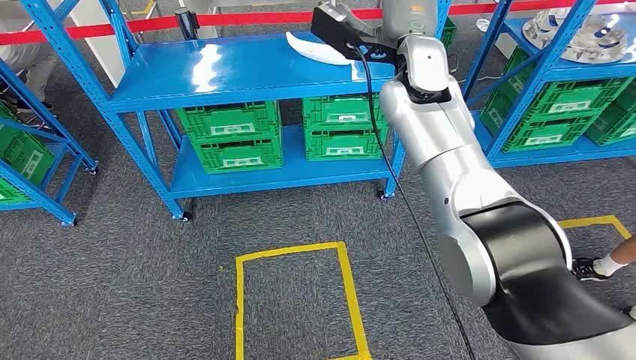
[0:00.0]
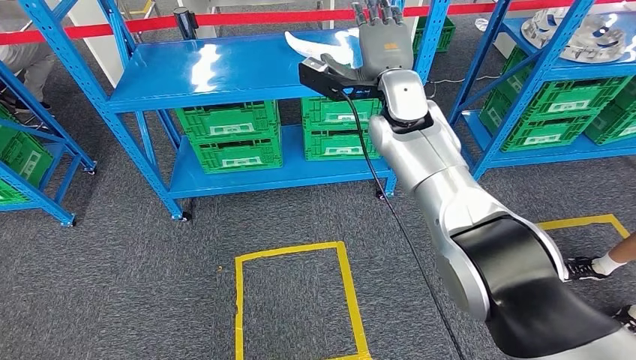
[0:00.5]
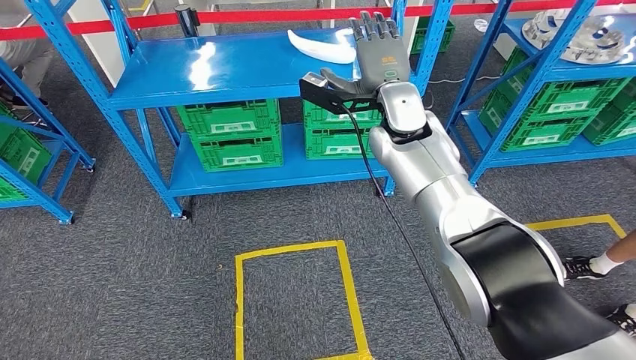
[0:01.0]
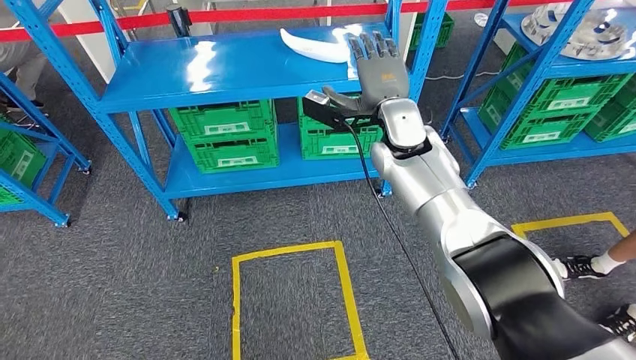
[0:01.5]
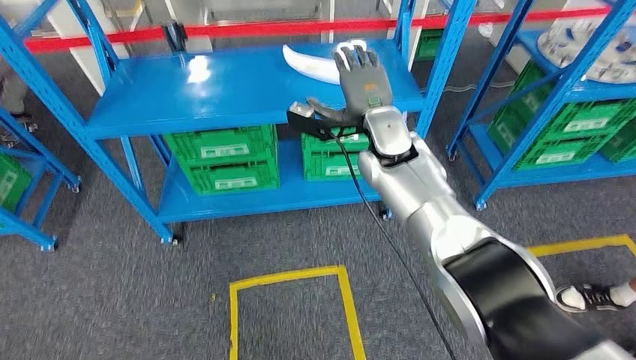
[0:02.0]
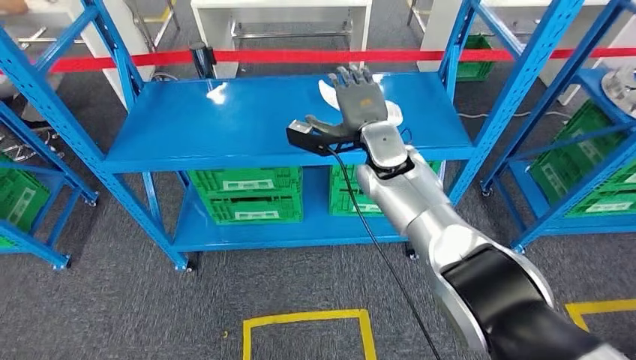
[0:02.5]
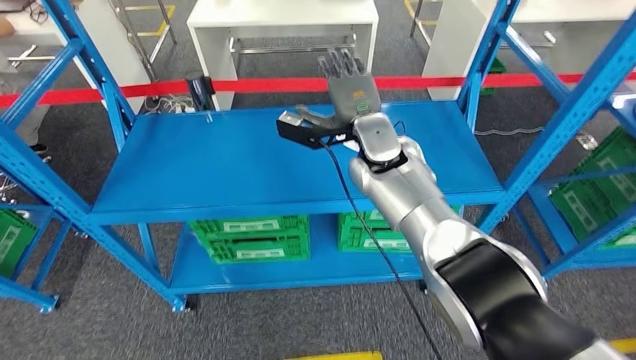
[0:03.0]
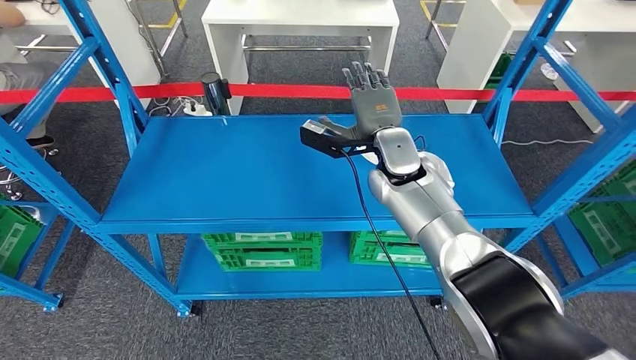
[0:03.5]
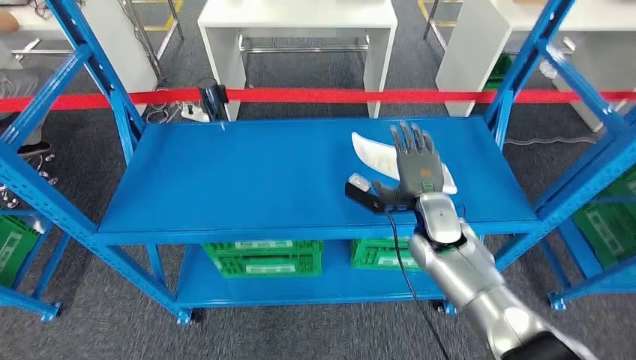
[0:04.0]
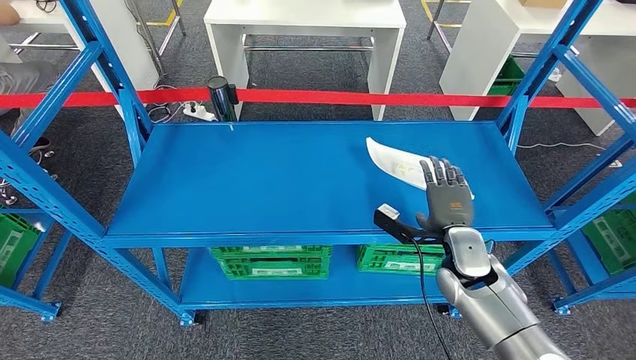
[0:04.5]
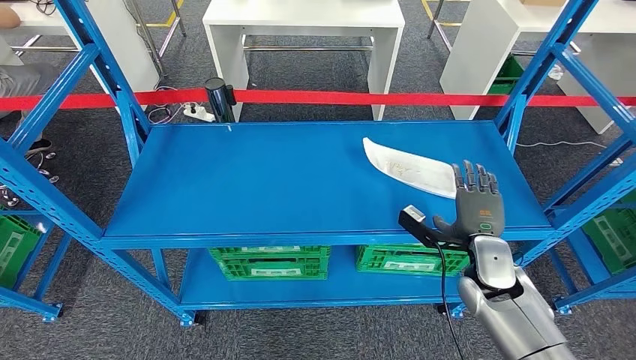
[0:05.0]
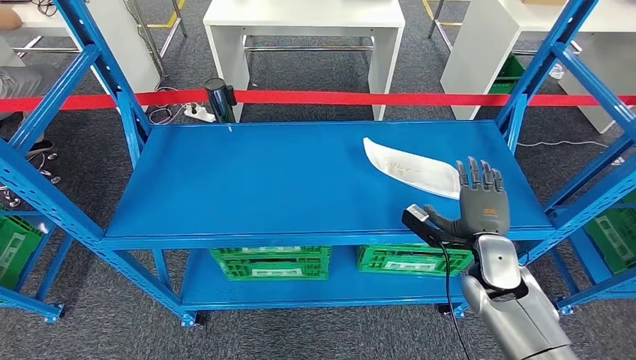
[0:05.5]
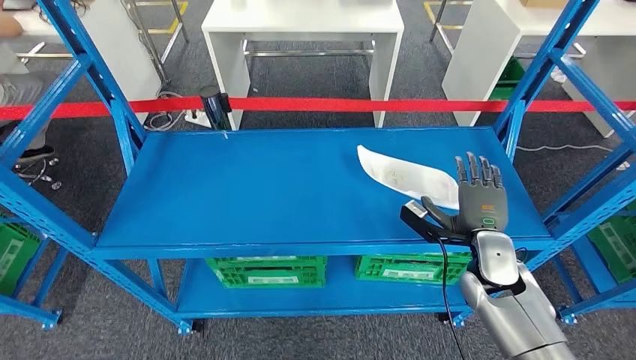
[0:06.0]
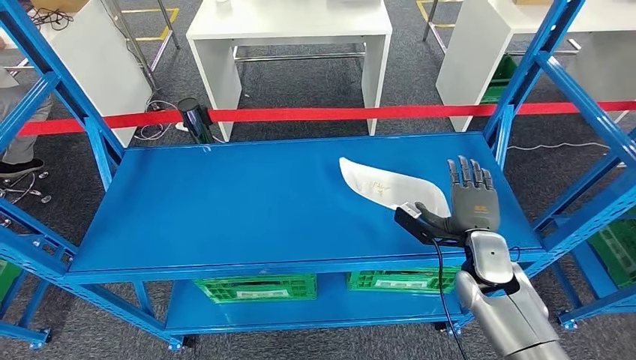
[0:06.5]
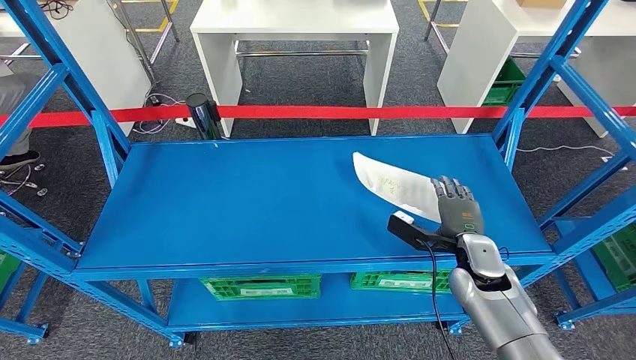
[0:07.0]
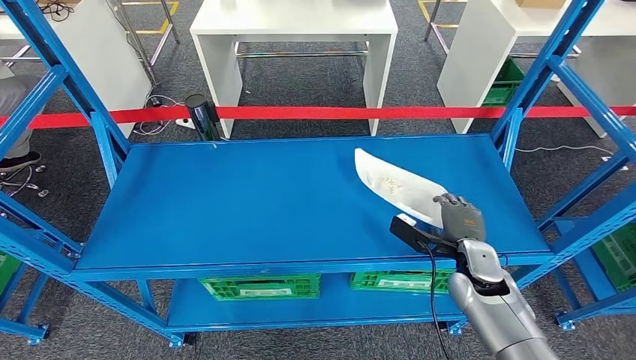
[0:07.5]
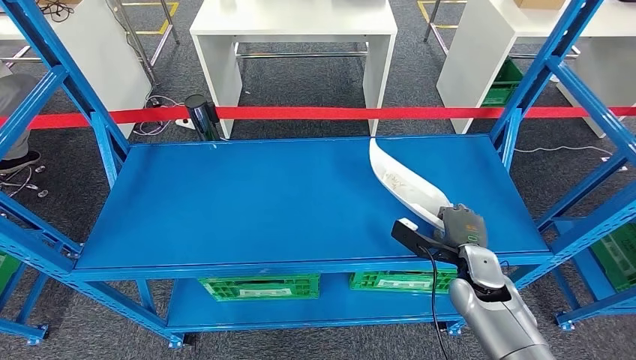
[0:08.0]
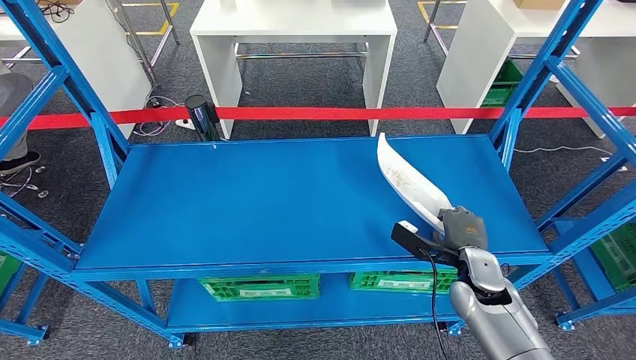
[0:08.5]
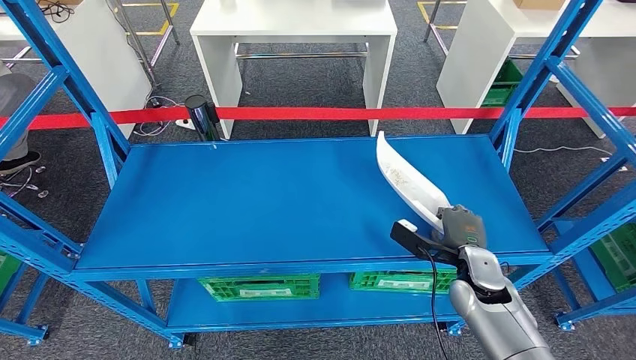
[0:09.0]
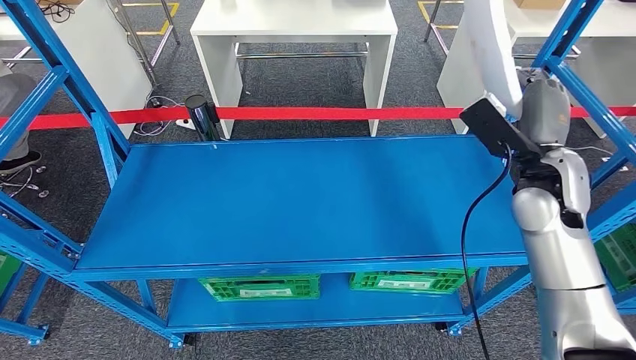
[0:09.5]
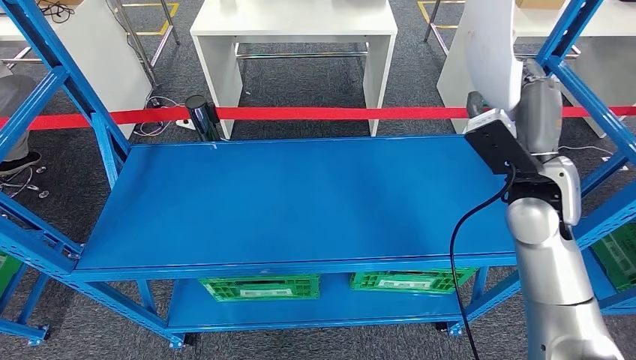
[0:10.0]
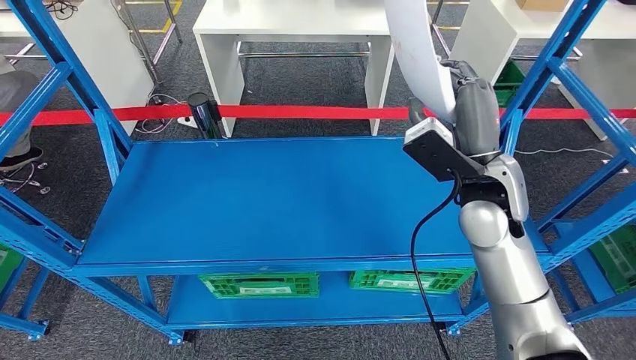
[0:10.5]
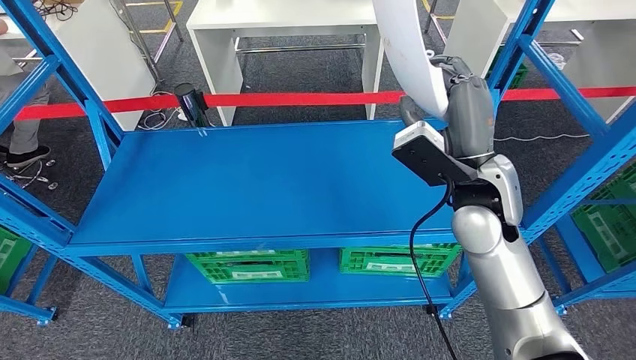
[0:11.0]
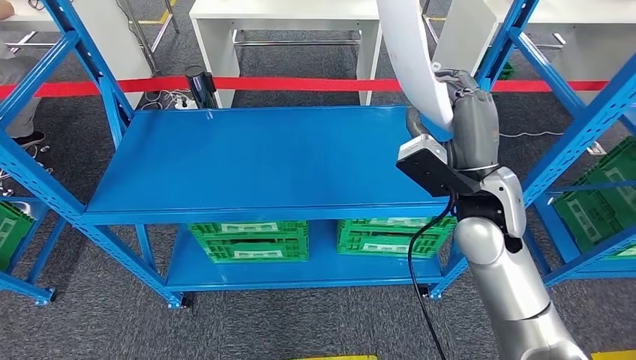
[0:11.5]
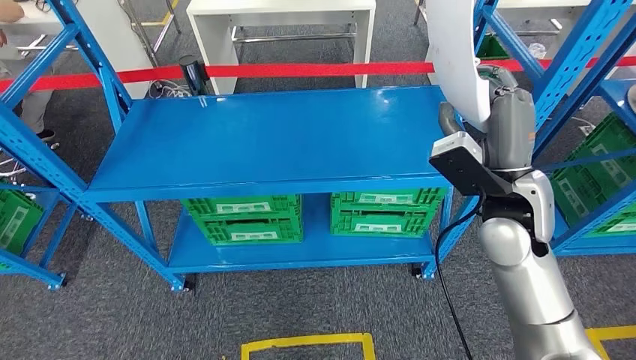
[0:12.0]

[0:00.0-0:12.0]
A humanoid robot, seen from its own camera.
Step, 0:00.0 to 0:10.0: Pick up the small component from the shelf.
0:08.0 to 0:10.0: The right hand is displaced upward and forward by about 20 cm.

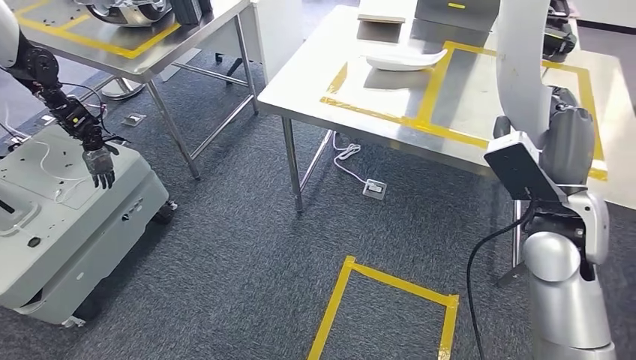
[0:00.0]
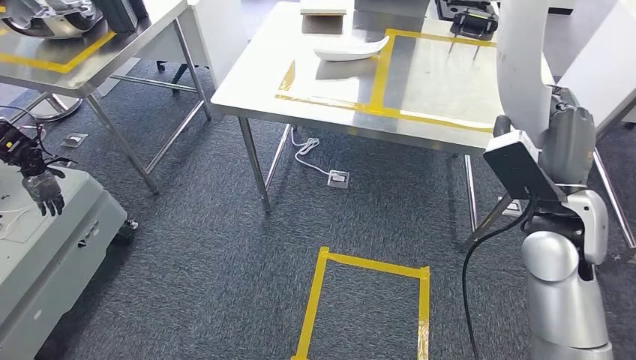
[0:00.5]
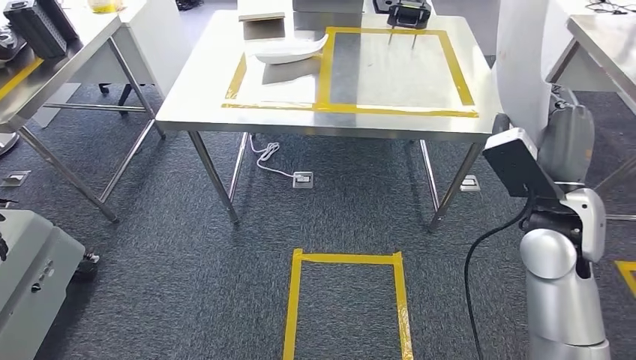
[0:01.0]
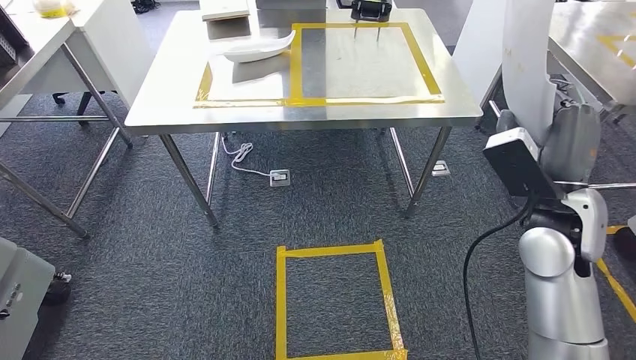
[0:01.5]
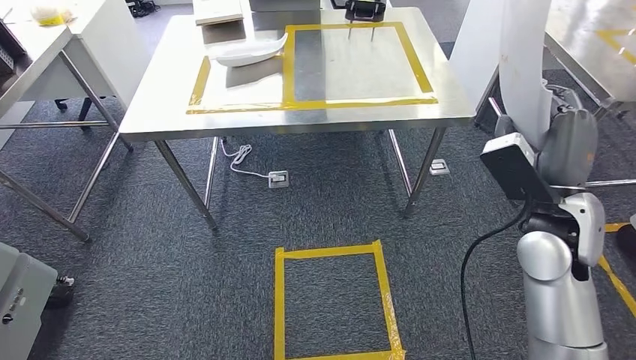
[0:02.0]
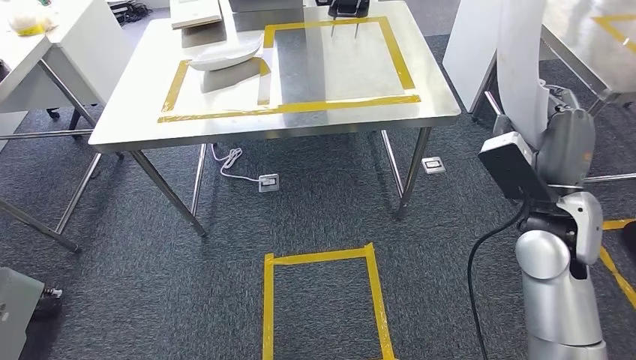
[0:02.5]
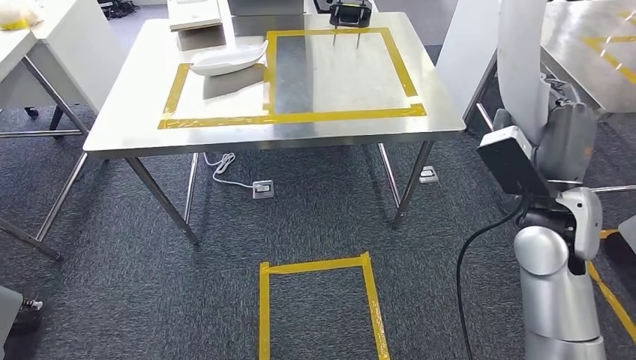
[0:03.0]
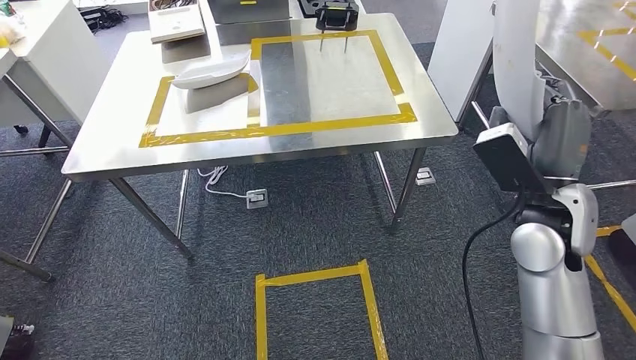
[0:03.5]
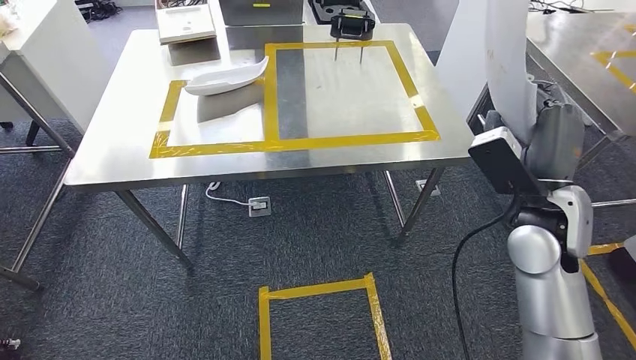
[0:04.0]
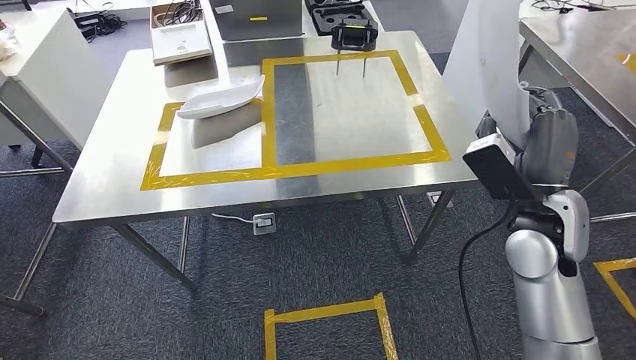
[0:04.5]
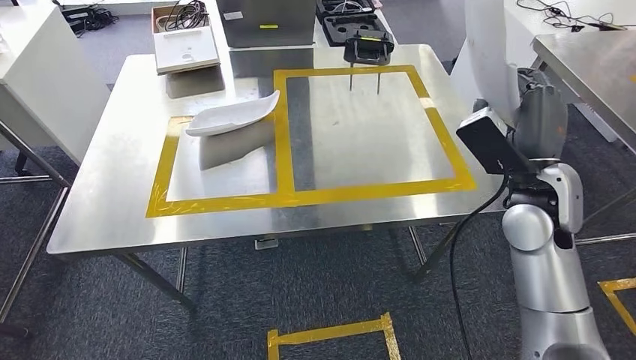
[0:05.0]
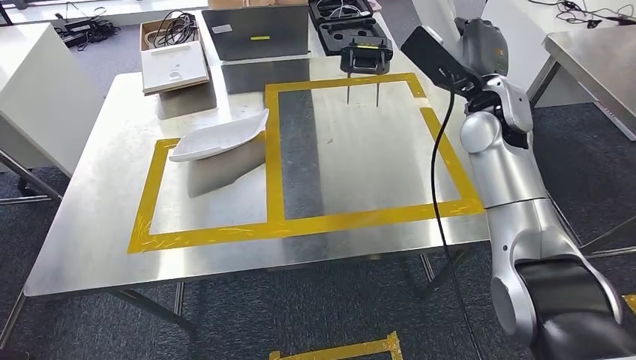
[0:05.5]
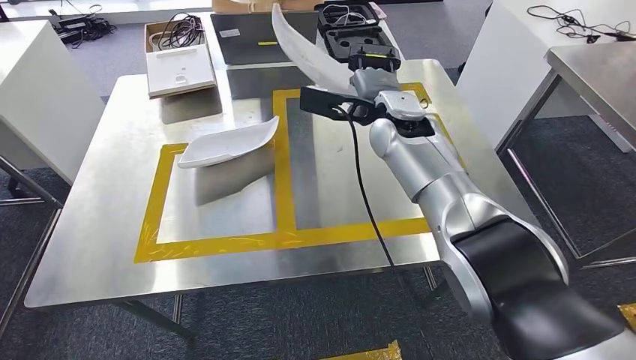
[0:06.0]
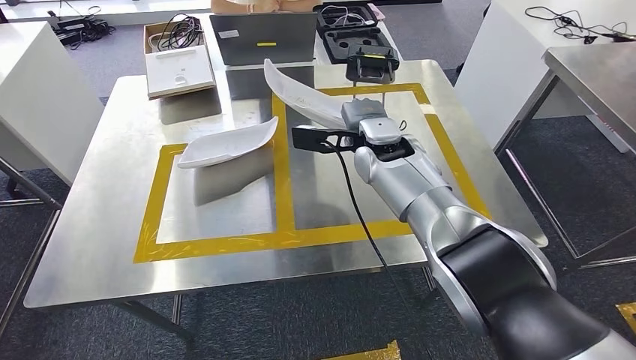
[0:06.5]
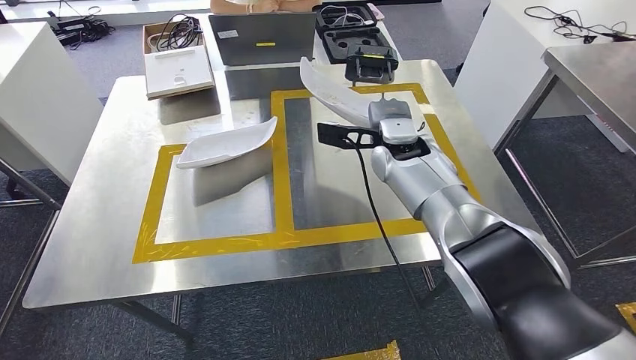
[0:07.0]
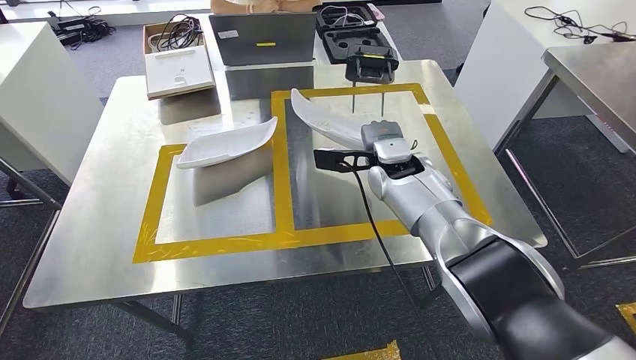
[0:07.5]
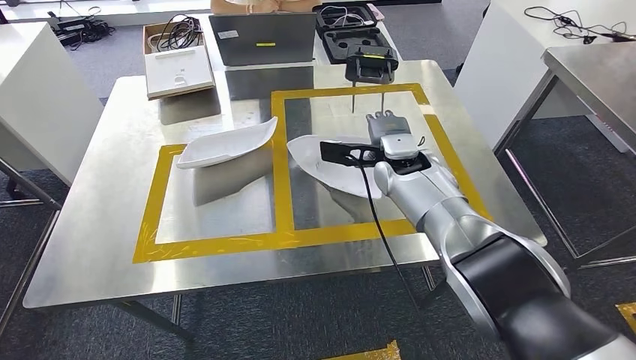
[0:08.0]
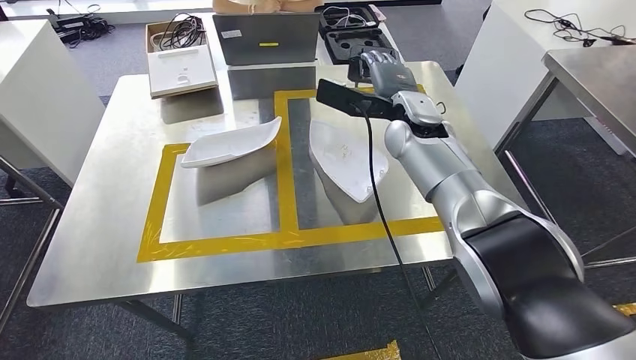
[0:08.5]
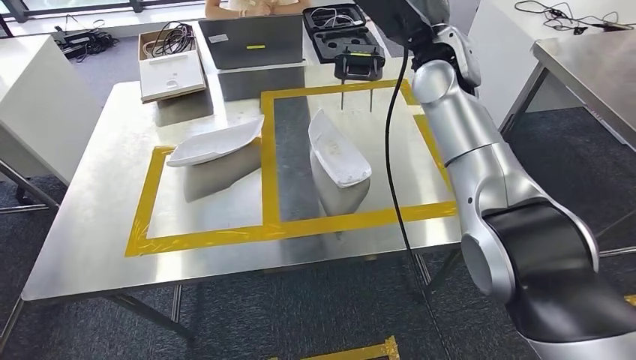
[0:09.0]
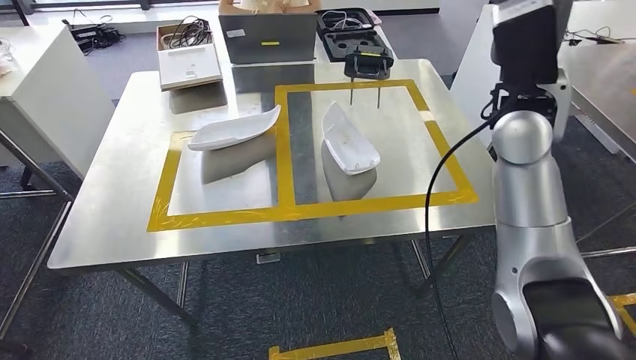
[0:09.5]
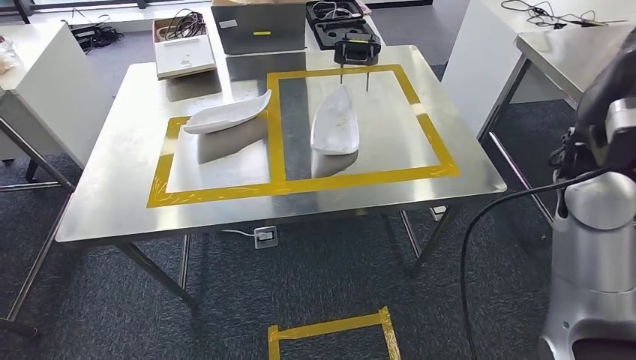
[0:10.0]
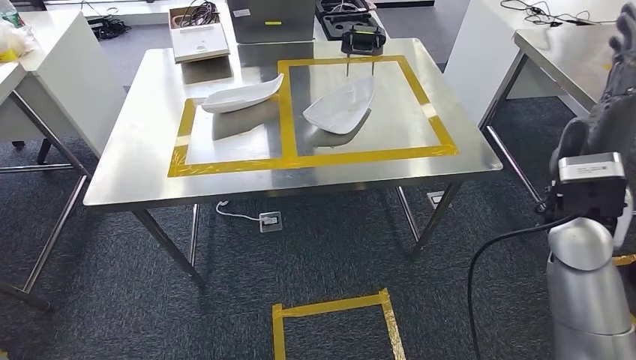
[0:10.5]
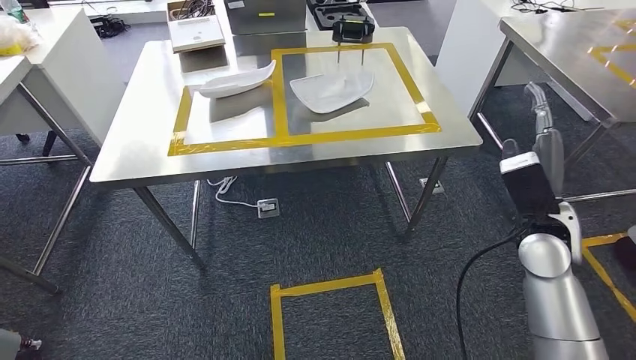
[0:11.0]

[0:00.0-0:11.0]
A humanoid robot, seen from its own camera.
Step, 0:00.0 to 0:06.0: Move the small component to the workbench.
Step, 0:06.5 to 0:09.5: Insert the small component into the corresponding slot on the workbench.
